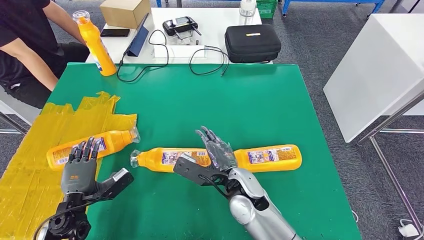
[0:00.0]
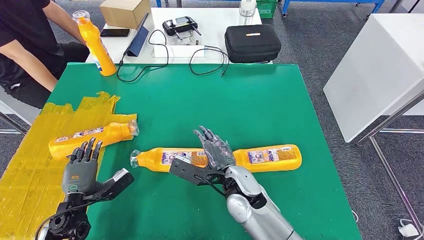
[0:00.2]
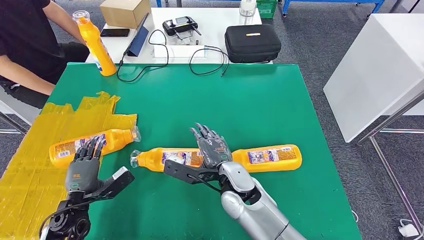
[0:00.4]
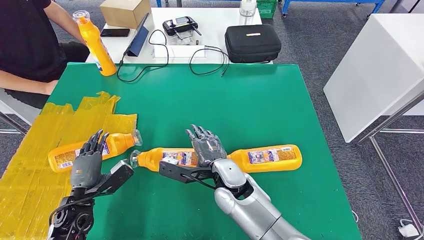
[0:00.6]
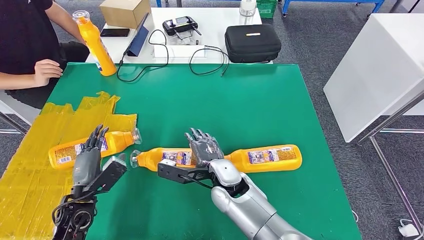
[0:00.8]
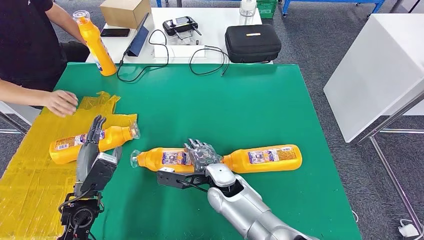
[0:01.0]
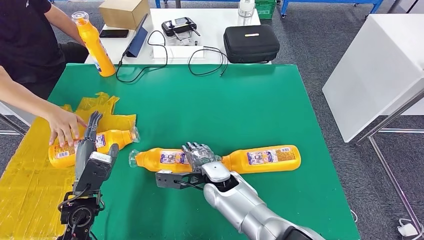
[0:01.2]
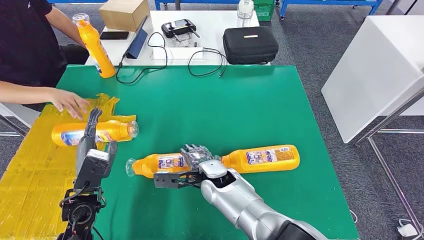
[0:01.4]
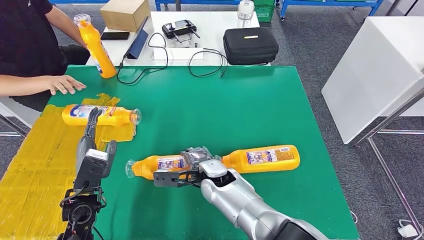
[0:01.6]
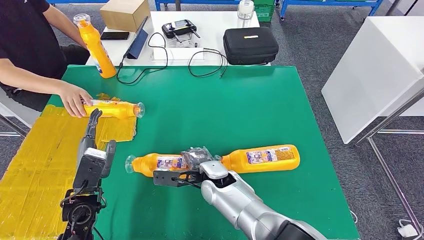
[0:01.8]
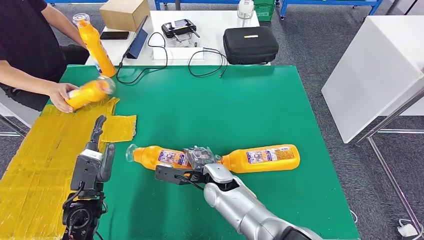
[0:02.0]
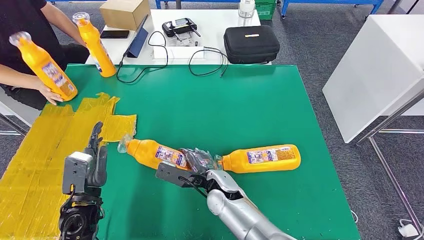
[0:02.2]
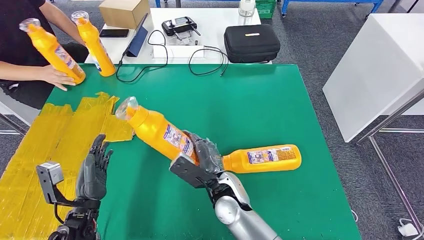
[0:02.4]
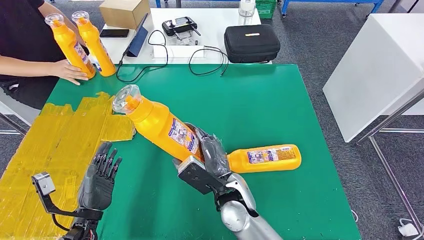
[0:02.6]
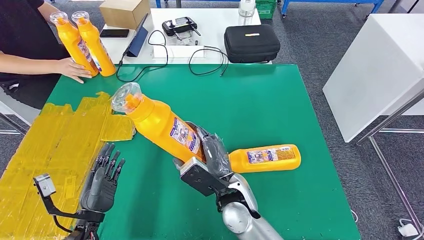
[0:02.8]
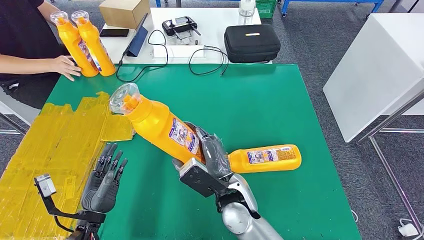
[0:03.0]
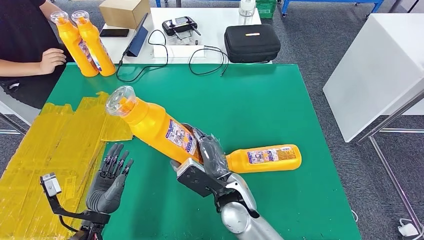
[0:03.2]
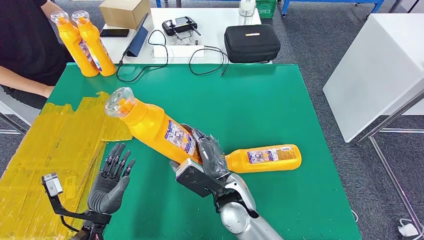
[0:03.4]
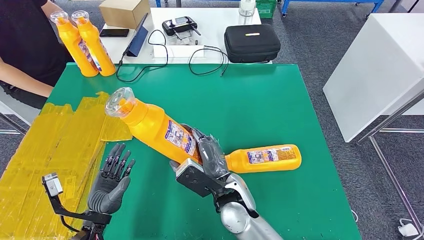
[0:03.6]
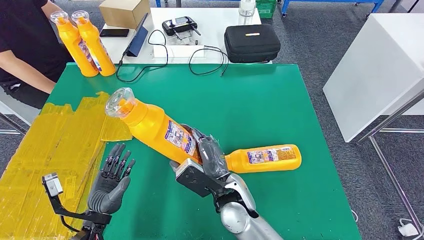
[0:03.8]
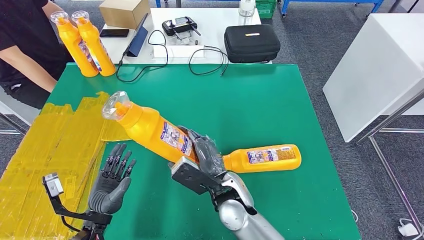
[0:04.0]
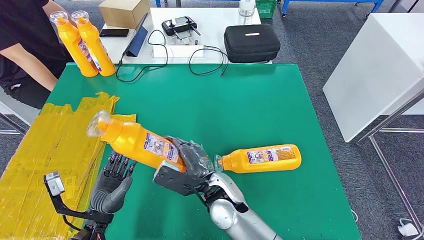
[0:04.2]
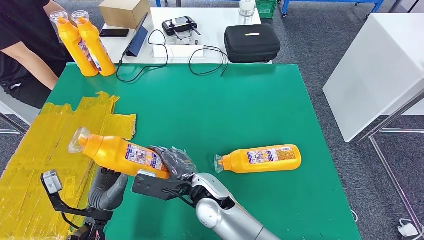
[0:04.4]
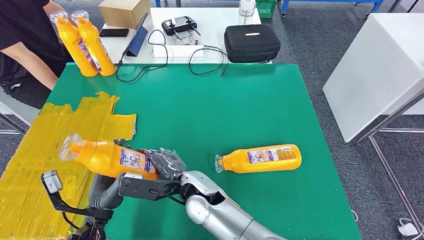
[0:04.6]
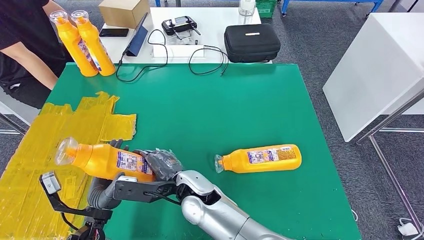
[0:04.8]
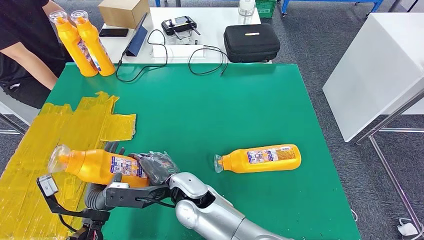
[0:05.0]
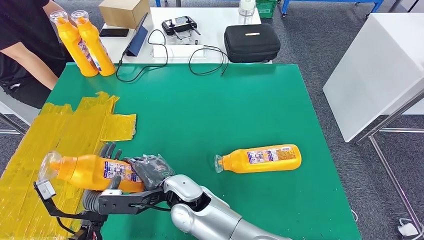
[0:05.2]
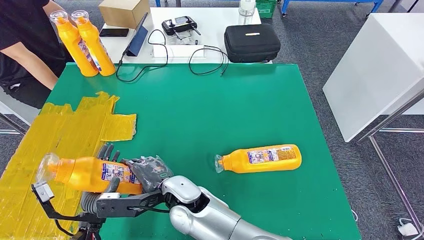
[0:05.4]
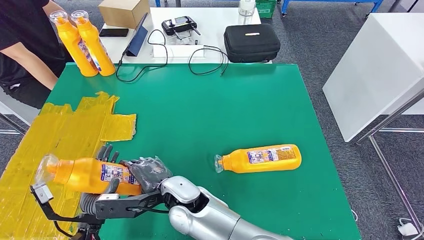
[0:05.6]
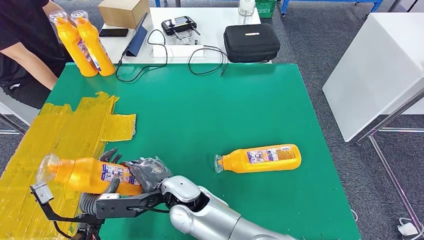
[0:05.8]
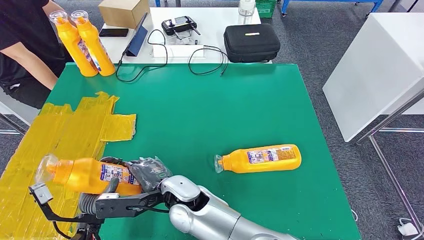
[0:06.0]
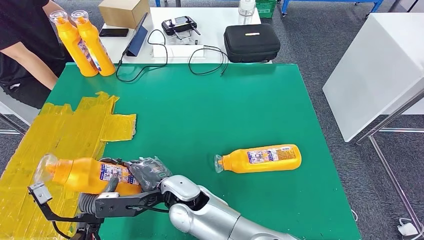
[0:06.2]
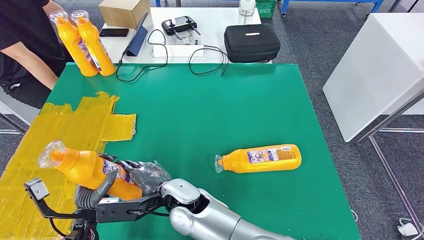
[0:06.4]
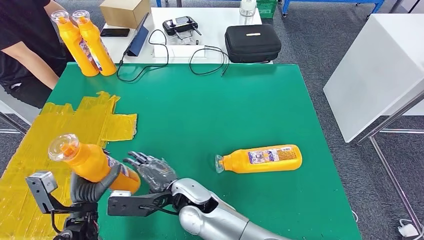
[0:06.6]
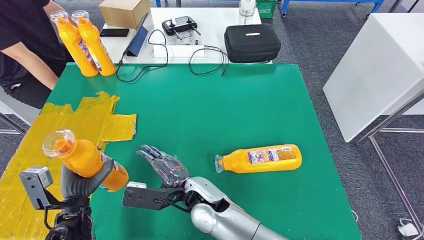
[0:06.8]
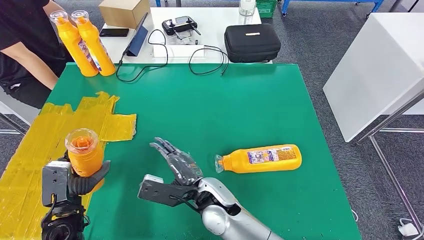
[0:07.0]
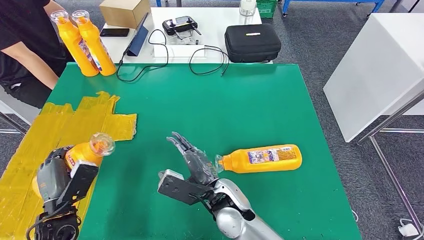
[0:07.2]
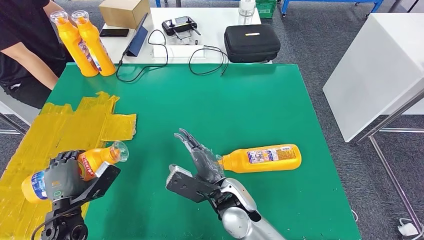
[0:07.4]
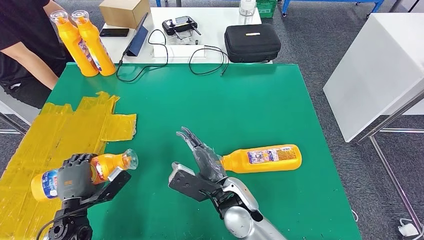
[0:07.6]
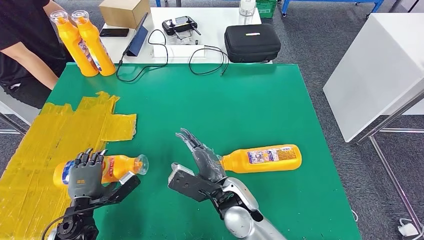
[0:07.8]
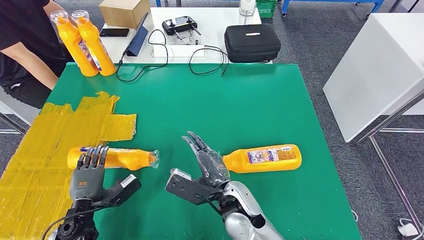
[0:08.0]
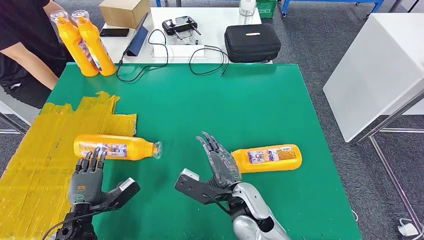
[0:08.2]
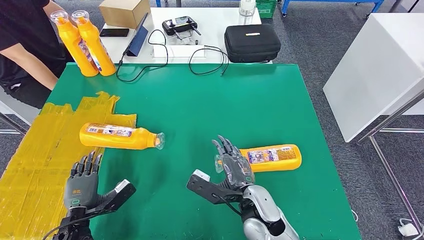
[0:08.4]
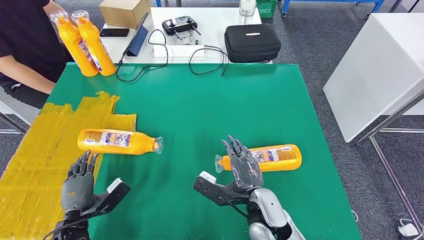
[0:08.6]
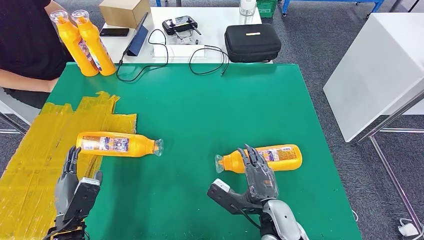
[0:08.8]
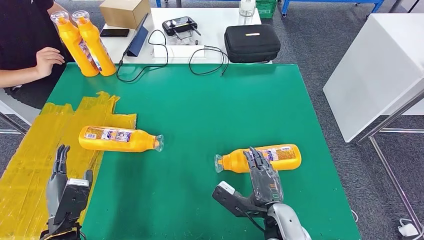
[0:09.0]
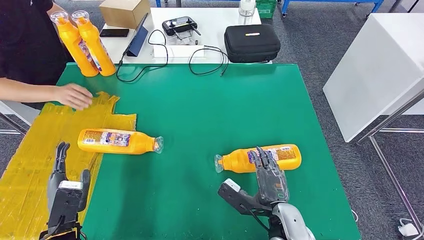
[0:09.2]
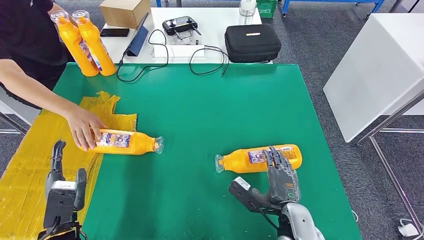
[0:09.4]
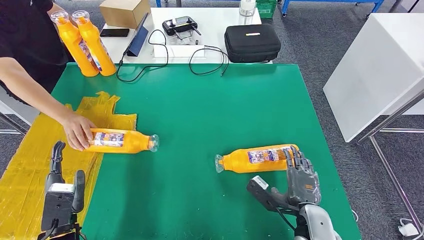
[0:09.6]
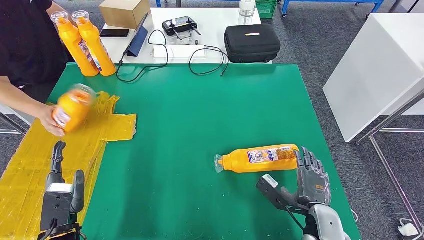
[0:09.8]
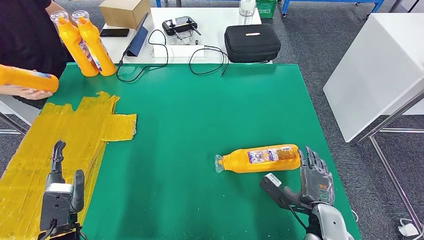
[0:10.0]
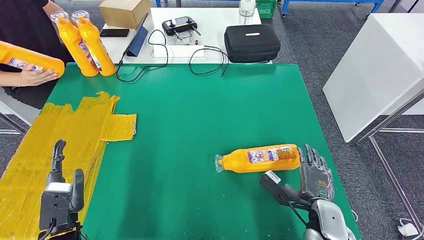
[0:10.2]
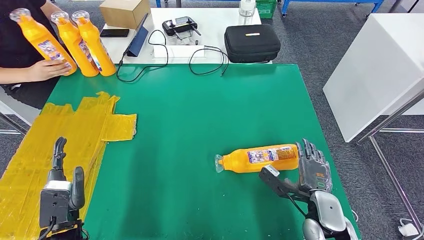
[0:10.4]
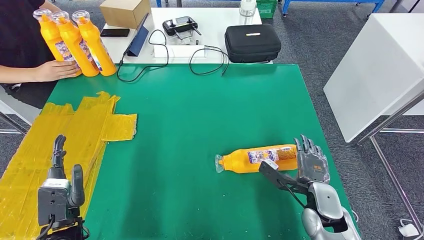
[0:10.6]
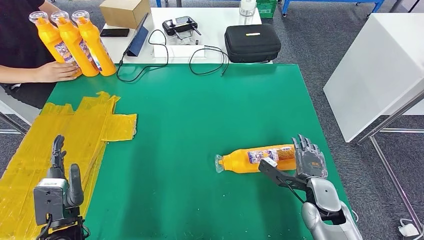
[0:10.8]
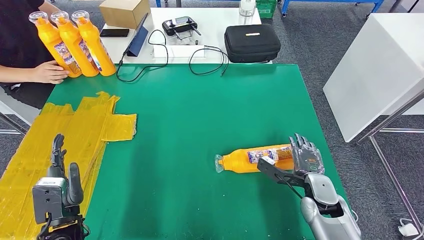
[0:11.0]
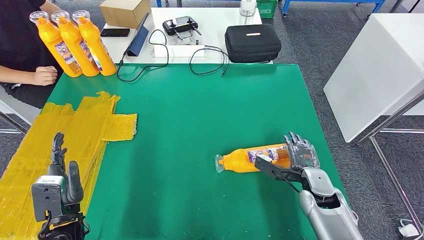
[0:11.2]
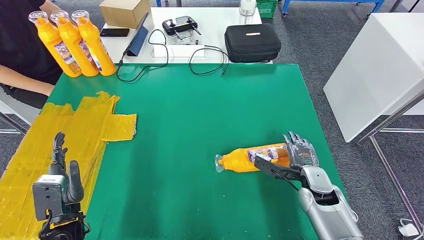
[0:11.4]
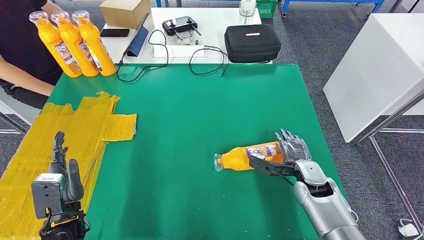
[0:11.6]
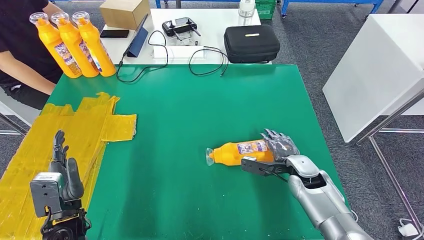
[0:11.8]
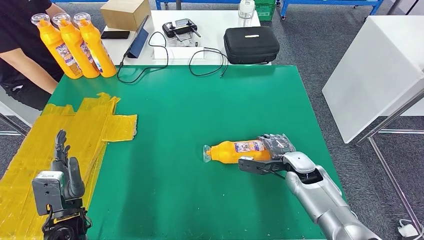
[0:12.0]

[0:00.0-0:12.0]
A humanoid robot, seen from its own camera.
Step, 0:00.0 to 0:03.8: Pick up the bottle from the table.
Step, 0:04.2 to 0:07.8: Flip the bottle to face forward.
0:03.0 to 0:04.4: The right hand shifts roughly 5 cm to the left.
0:04.4 to 0:06.0: The right hand moves to the left, some 5 cm.
0:06.0 to 0:07.6: The right hand moves to the right, roughly 10 cm. The left hand ends up roughly 5 cm from where it was.
0:07.6 to 0:09.0: The right hand moves to the right and backward, some 10 cm.
0:09.0 to 0:10.4: The right hand is displaced to the right by some 10 cm.
0:10.4 to 0:12.0: The right hand moves forward, approximately 10 cm.

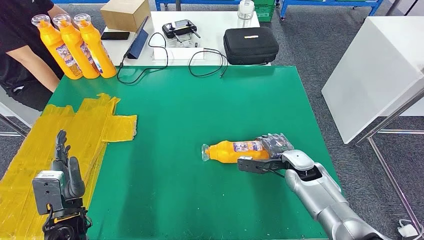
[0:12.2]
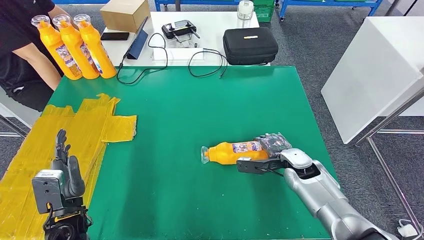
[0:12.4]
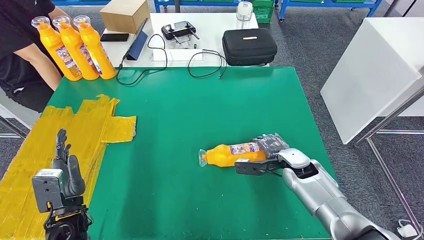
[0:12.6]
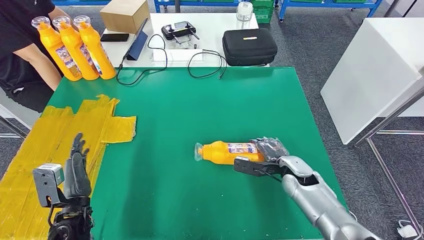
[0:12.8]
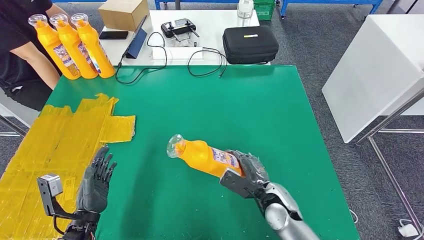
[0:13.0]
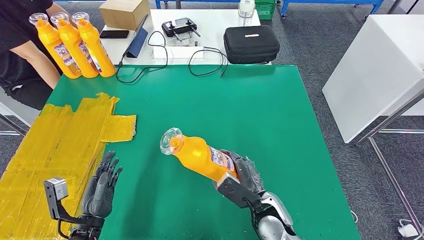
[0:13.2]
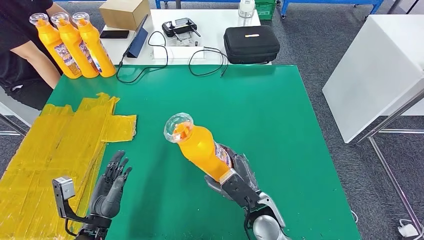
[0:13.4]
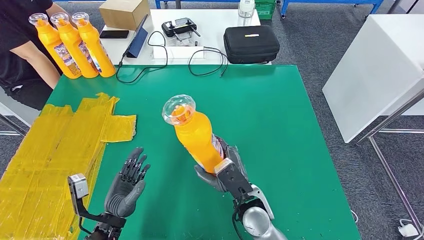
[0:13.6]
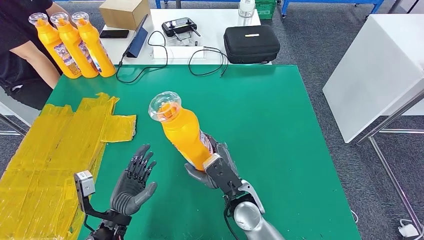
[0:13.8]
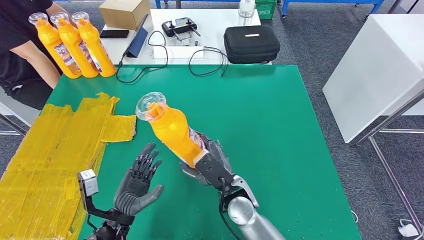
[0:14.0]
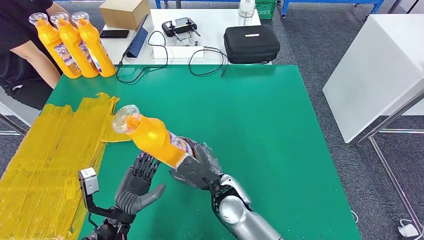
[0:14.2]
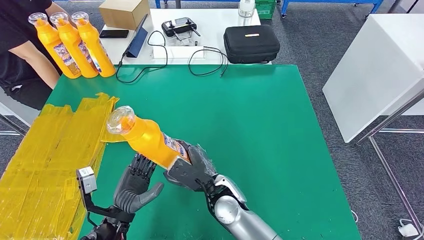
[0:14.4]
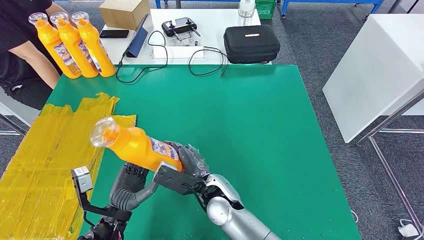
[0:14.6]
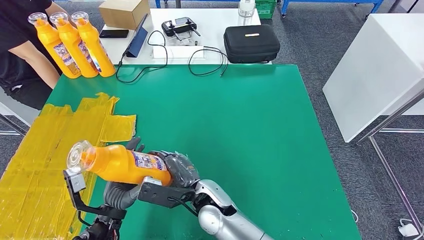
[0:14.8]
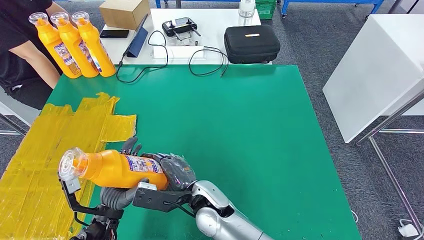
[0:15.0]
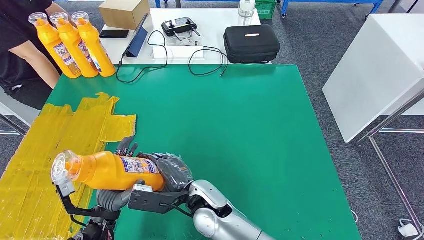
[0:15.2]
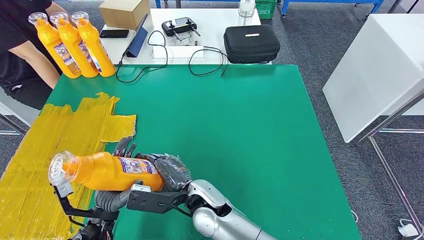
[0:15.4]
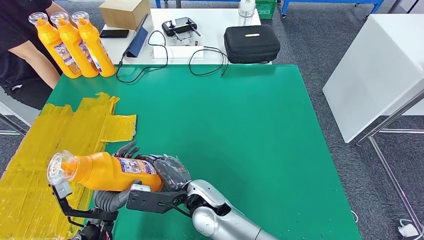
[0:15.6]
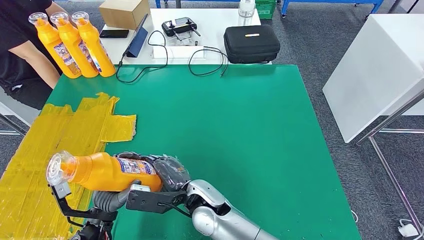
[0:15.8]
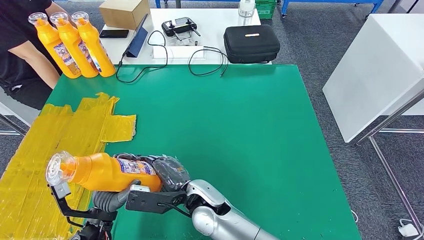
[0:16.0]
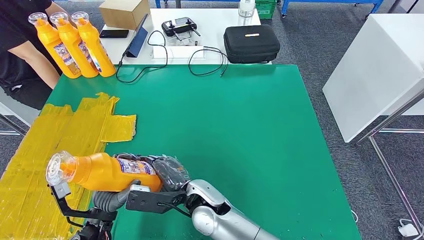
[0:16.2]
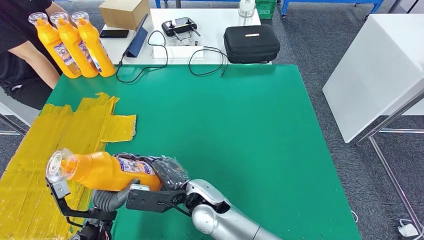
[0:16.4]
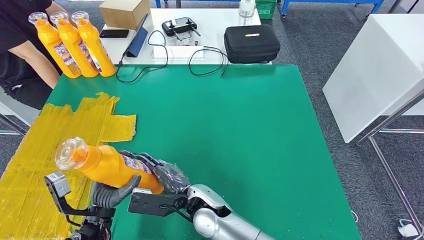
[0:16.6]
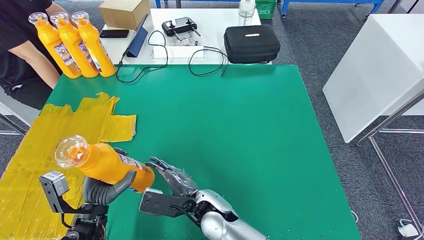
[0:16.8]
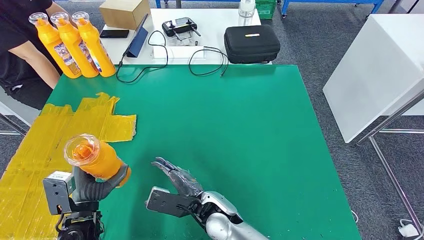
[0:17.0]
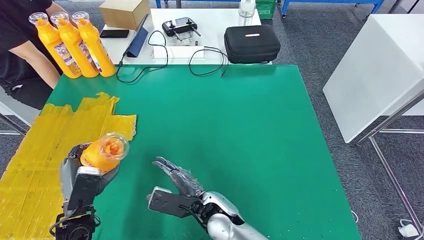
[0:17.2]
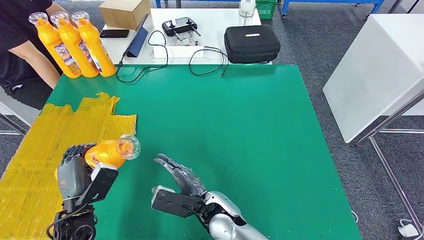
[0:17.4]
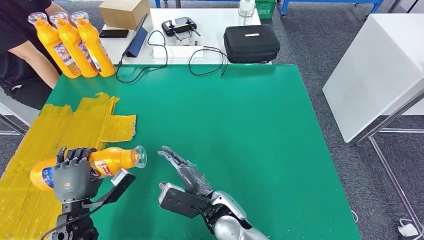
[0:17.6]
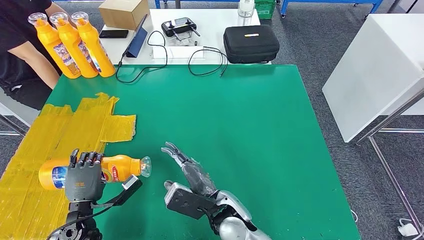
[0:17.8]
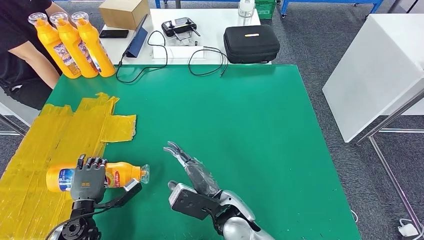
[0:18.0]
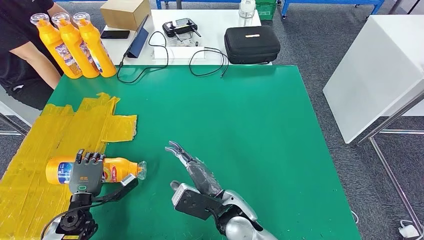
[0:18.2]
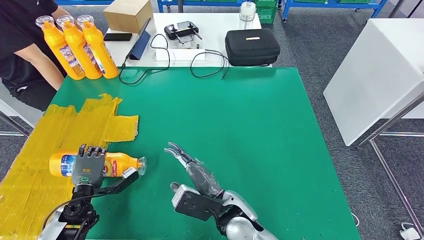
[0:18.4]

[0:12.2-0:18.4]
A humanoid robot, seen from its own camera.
Step, 0:12.2 to 0:14.8: Pick up the bottle from the table.
Step, 0:15.0 to 0:18.4: Flip the bottle to face forward.
0:13.8 to 0:15.4: The right hand goes approximately 10 cm to the left.
0:15.4 to 0:16.8: There are only small adjustments of the hands.
